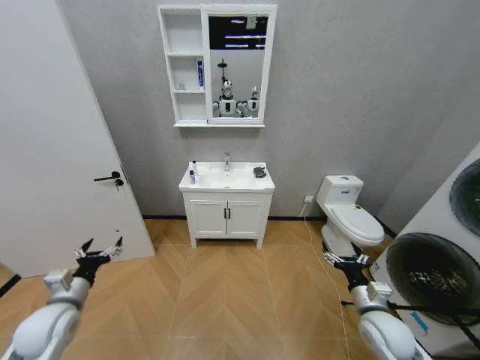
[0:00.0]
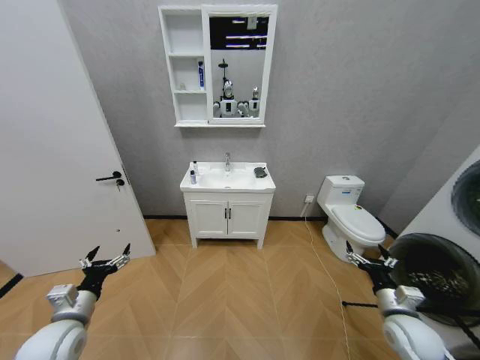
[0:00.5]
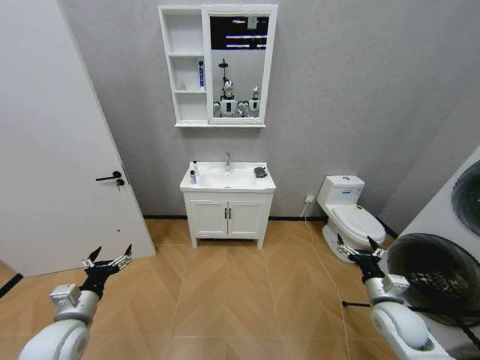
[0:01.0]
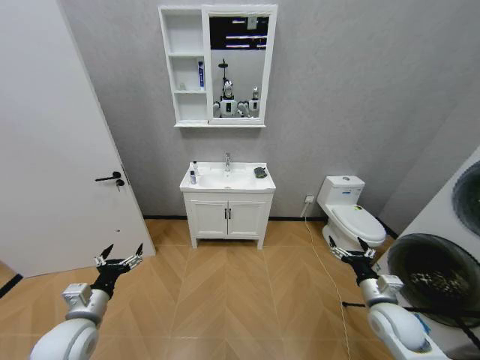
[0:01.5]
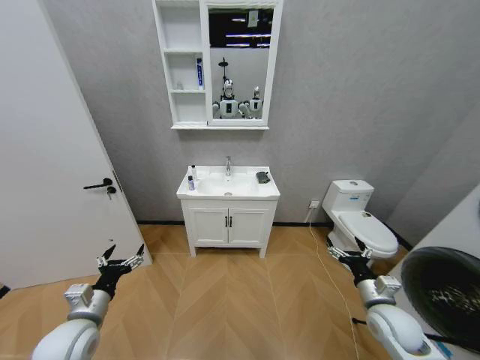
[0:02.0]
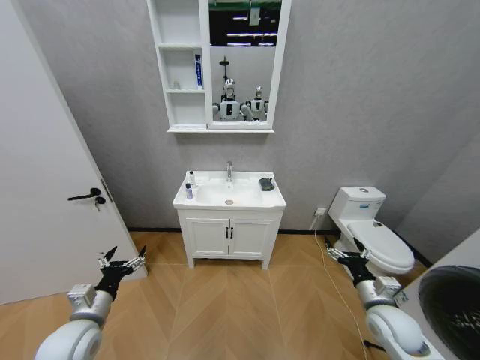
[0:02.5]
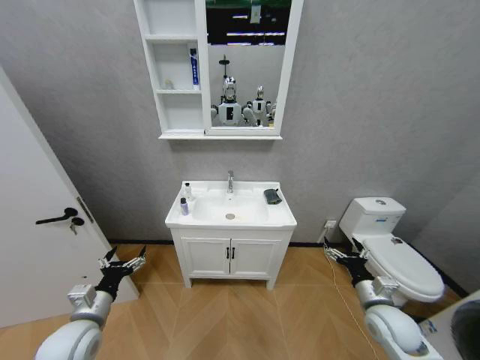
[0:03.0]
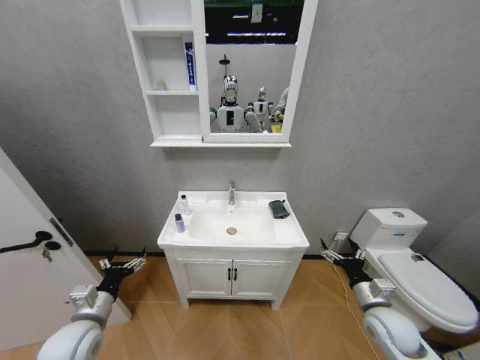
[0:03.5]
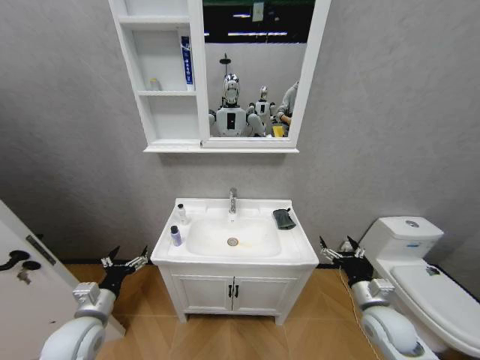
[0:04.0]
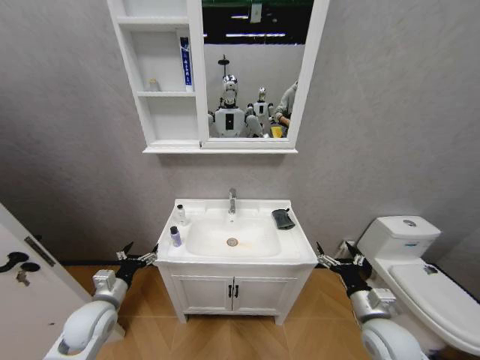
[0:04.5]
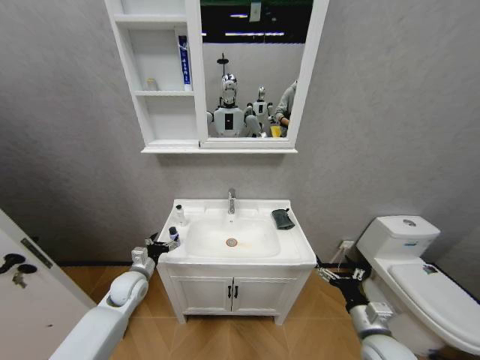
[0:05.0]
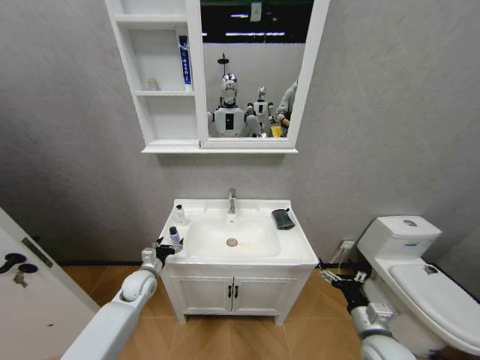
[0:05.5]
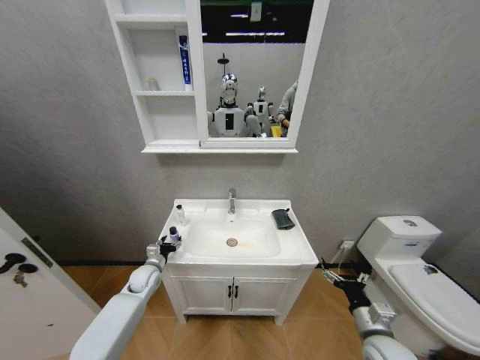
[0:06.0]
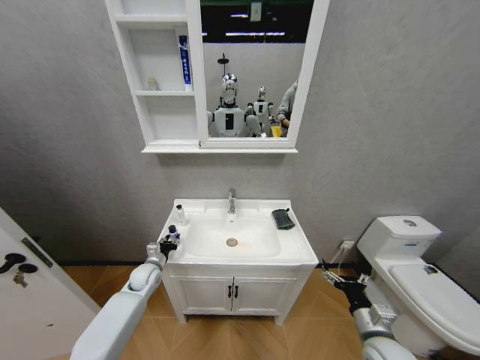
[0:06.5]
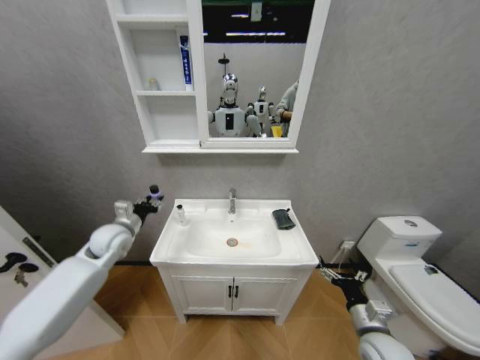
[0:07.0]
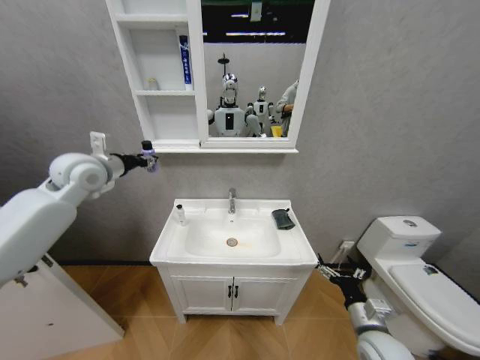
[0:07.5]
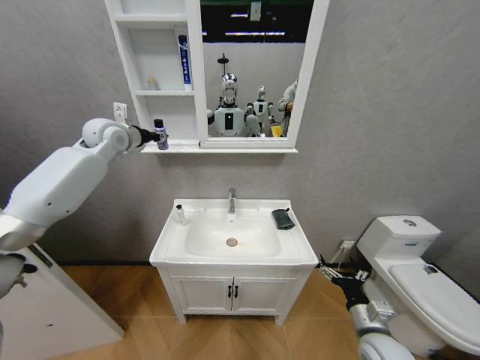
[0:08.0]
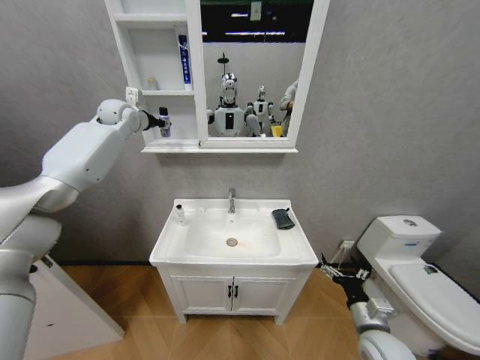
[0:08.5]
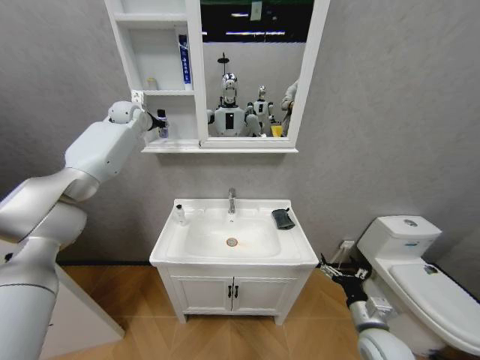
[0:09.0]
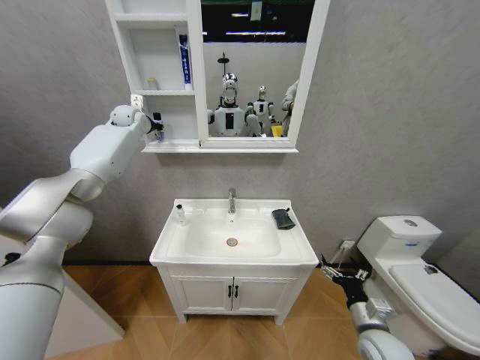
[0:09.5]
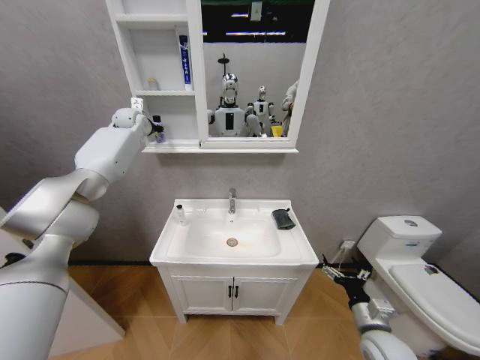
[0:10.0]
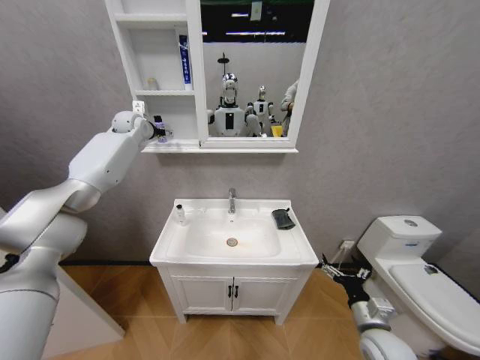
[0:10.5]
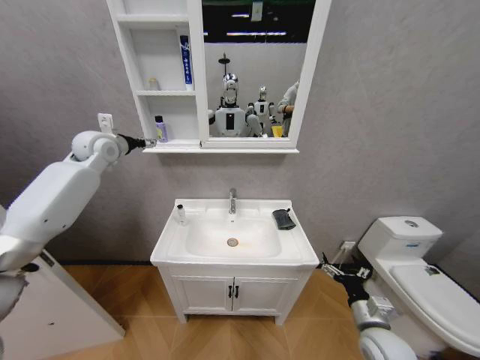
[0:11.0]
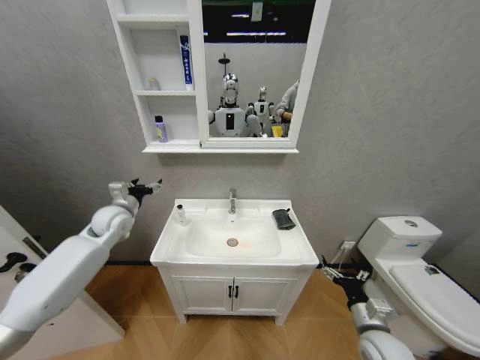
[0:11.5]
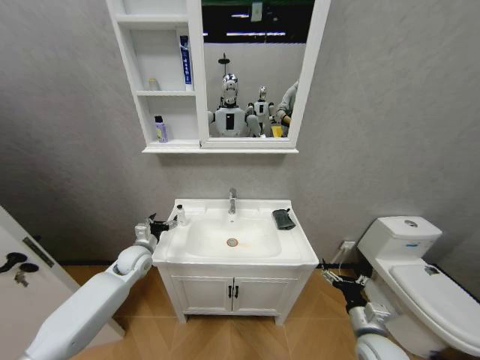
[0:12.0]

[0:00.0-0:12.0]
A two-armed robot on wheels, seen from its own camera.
Task of the whole recording: Move facial cleanser and shampoo from washbasin to cabinet, then wipe washbasin with towel.
0:04.0 to 0:06.0: The right gripper moves backward, about 5 cm; the left gripper is displaced forward and downward by approximately 20 cm, and closes its fingers.
0:06.0 to 0:08.0: The left gripper heads upward, covering approximately 40 cm, and closes up.
0:08.0 to 0:10.0: The left gripper shifts some 10 cm forward.
0:10.0 to 0:12.0: The left gripper goes about 50 cm downward and backward, and opens.

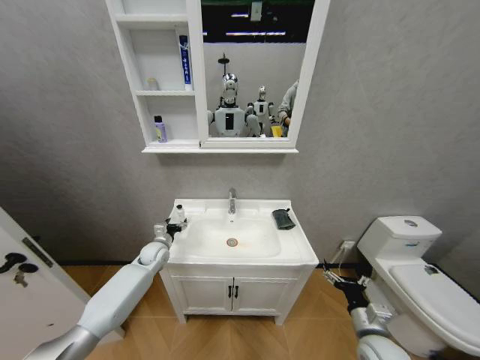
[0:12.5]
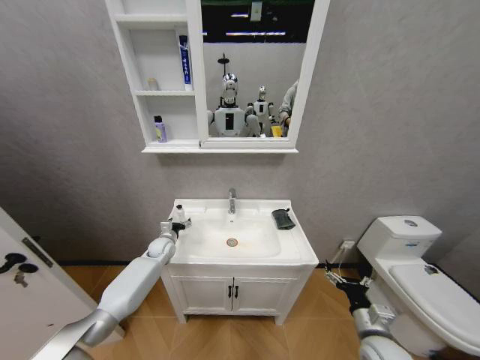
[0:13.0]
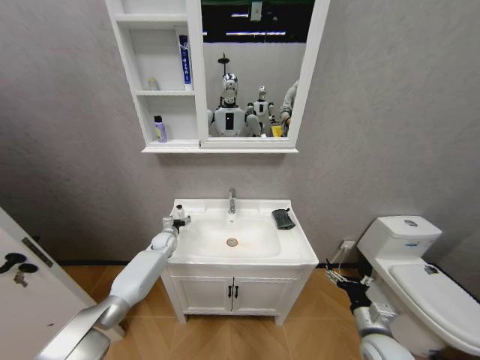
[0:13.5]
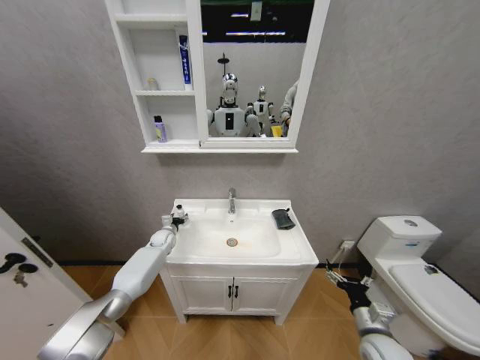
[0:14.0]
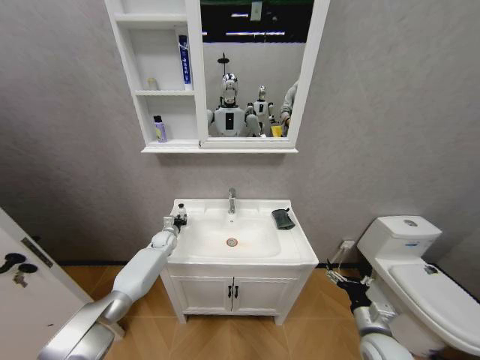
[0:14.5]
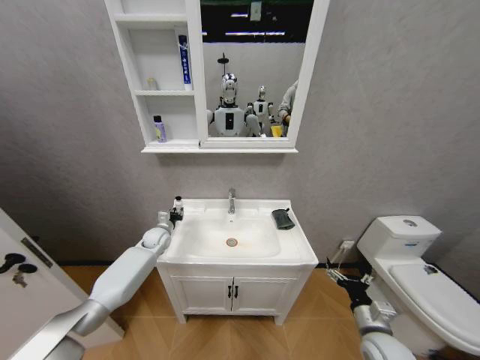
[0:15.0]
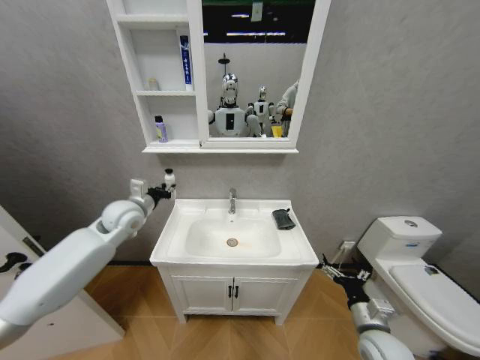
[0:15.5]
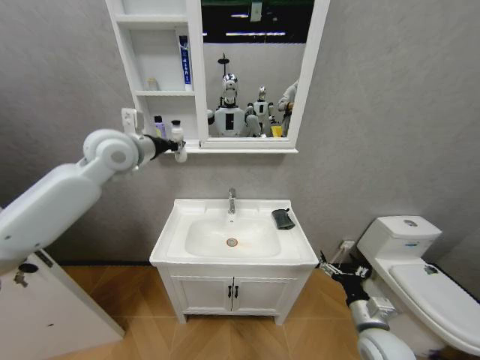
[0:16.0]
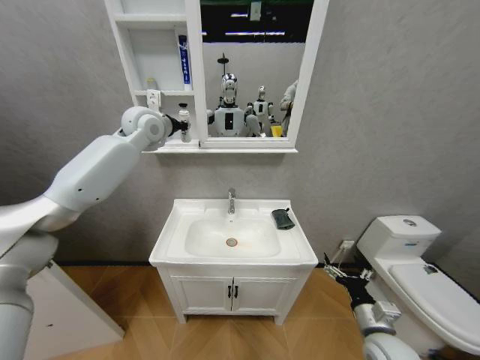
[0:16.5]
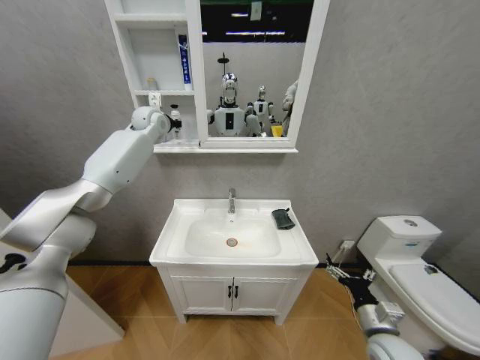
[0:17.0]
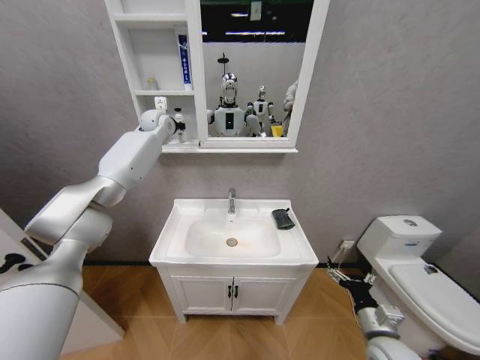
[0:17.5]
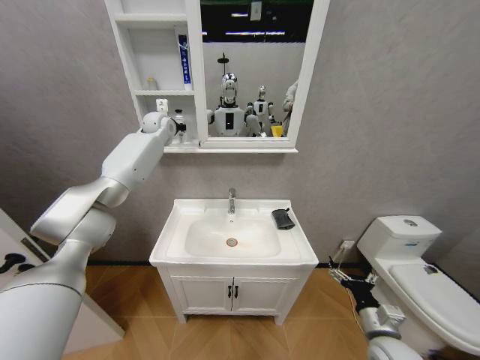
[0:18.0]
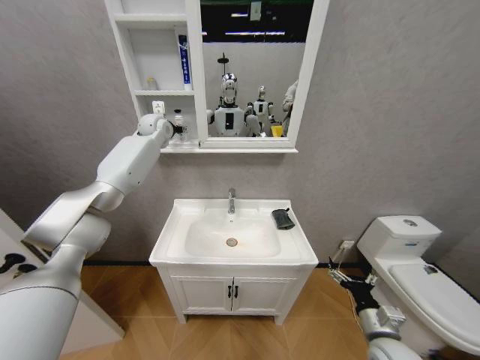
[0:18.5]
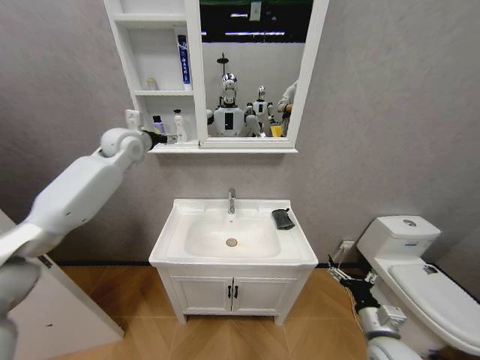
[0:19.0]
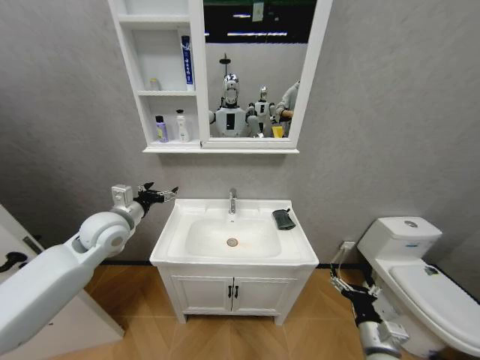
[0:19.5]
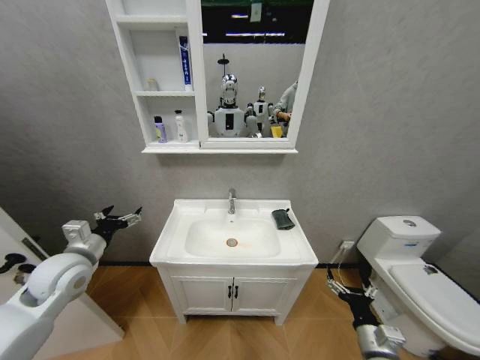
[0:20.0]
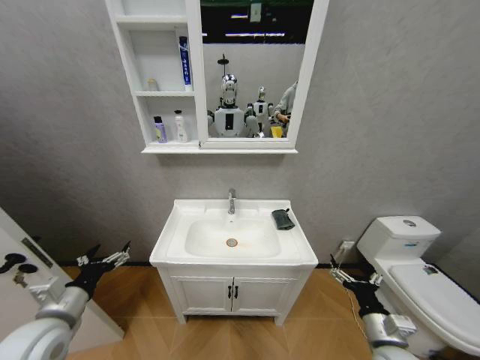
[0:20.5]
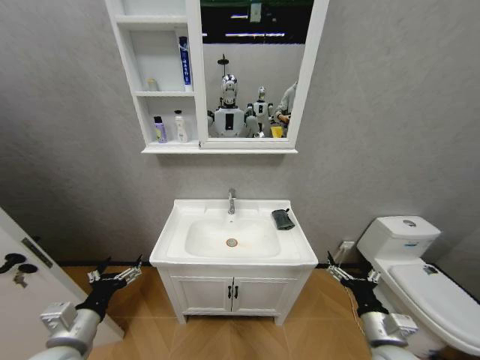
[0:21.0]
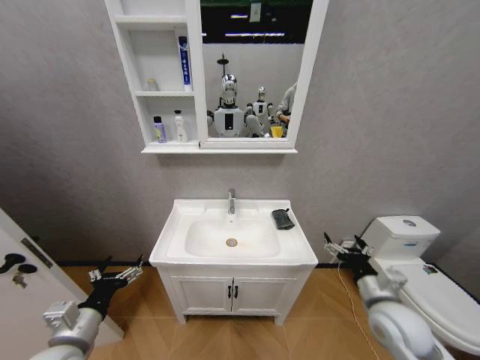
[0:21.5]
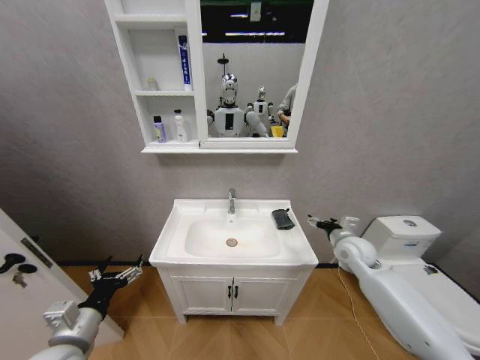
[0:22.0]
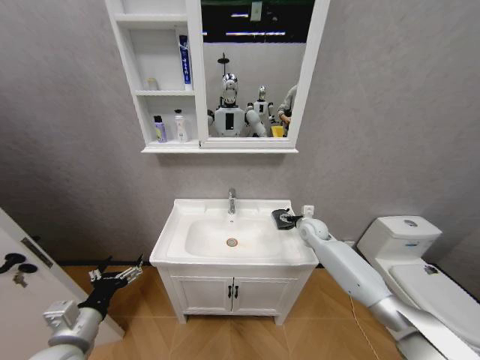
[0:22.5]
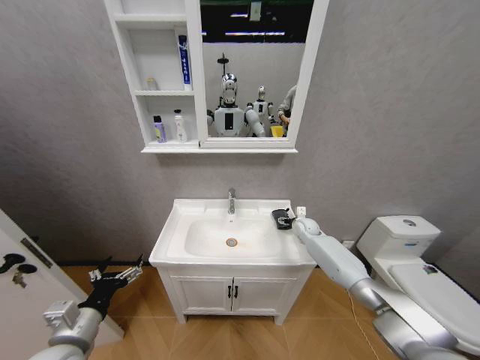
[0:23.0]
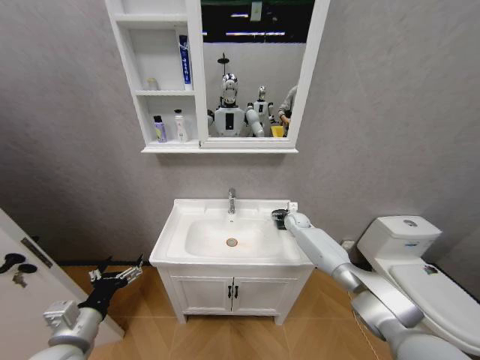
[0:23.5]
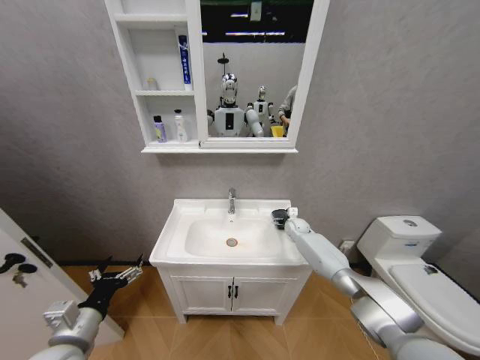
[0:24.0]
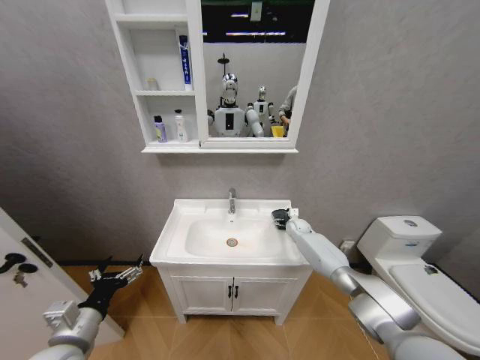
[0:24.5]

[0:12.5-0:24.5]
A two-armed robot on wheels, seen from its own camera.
Task of the whole recording: Move facial cleanser and shampoo from washbasin to cabinet, then wipe washbasin with towel.
0:12.5 to 0:14.5: The left gripper shifts approximately 10 cm forward, and closes up.
0:14.5 to 0:16.5: The left gripper is displaced upward by roughly 50 cm.
0:16.5 to 0:18.5: The left gripper shifts about 10 cm forward, and opens its fingers.
0:18.5 to 0:20.5: The left gripper goes approximately 60 cm backward and downward, and opens.
0:20.5 to 0:22.5: The right gripper is displaced forward by some 35 cm. Meanwhile the left gripper ends up roughly 5 cm from where it was.
0:22.5 to 0:24.5: The right gripper is displaced forward and downward by roughly 10 cm.

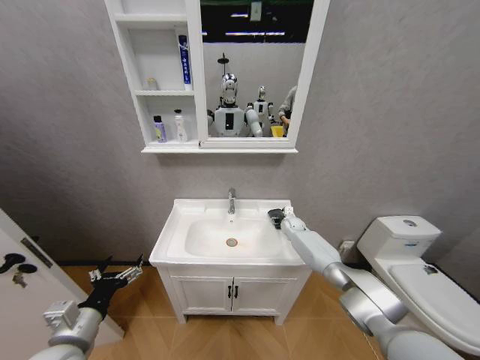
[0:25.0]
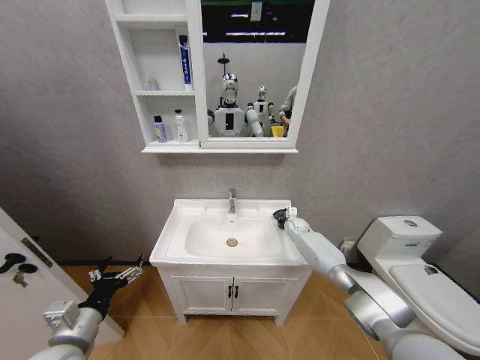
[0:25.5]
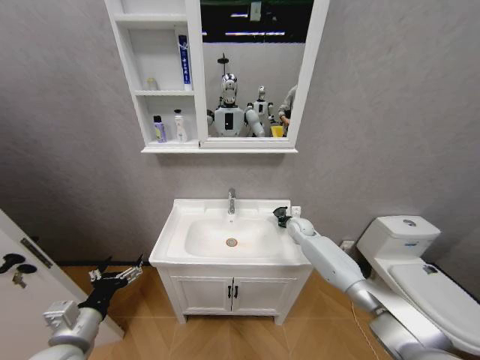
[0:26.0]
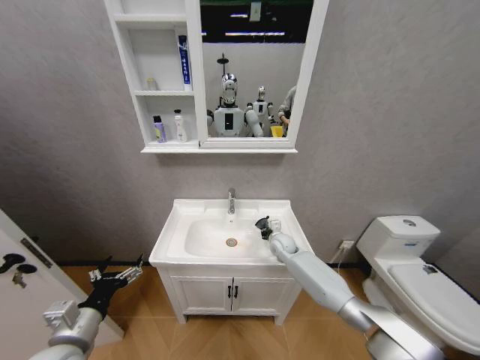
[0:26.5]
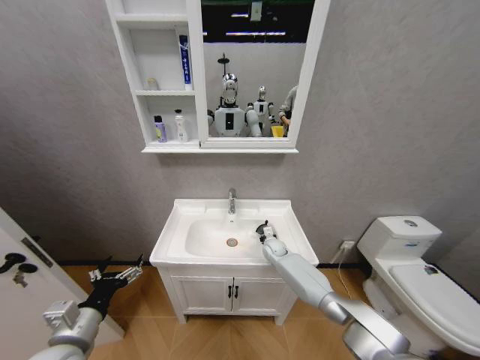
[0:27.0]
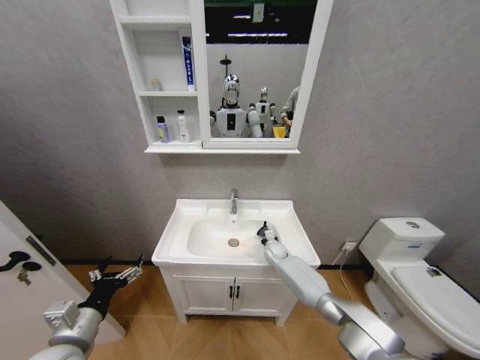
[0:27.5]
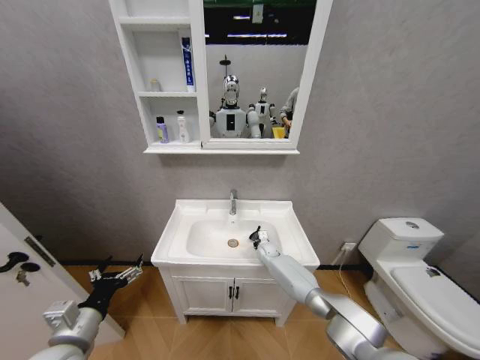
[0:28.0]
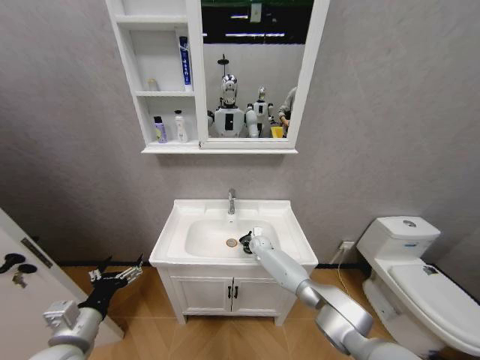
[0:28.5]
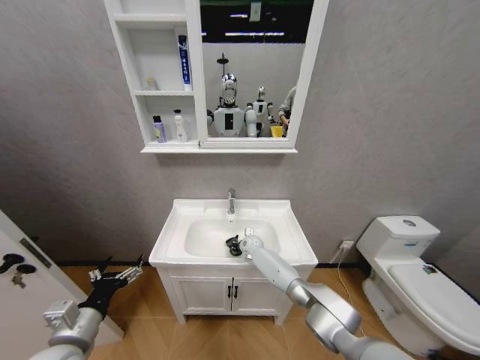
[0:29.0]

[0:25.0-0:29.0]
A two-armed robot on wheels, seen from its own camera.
Task of the whole recording: Move facial cleanser and shampoo from washbasin to cabinet, then wipe washbasin with towel.
0:25.0 to 0:27.0: The right gripper goes about 15 cm to the left, backward and downward, and closes.
0:27.0 to 0:29.0: The right gripper goes about 10 cm to the left.
